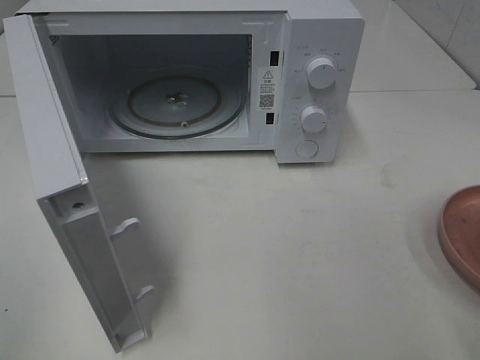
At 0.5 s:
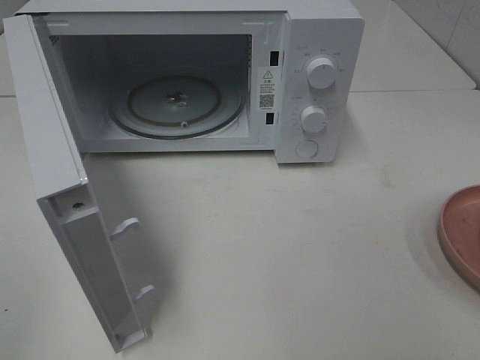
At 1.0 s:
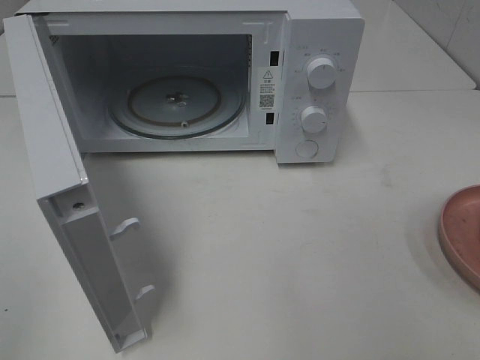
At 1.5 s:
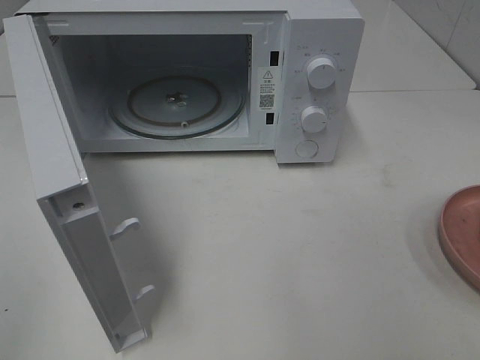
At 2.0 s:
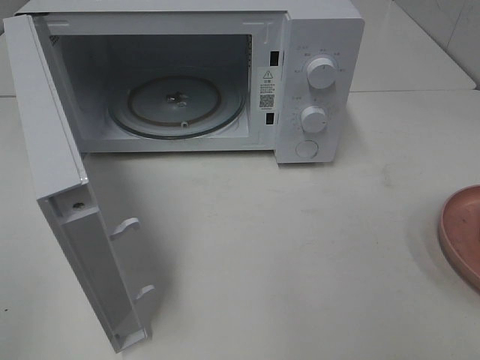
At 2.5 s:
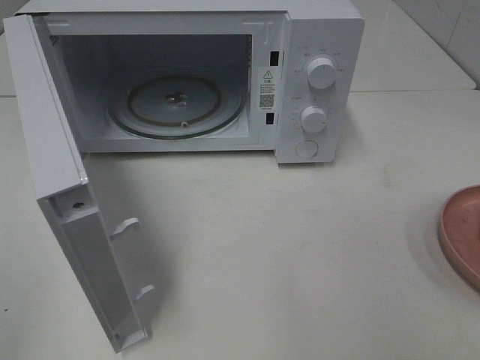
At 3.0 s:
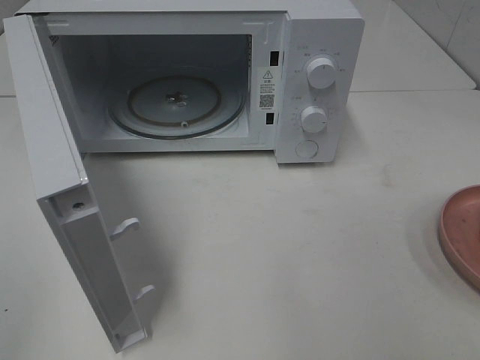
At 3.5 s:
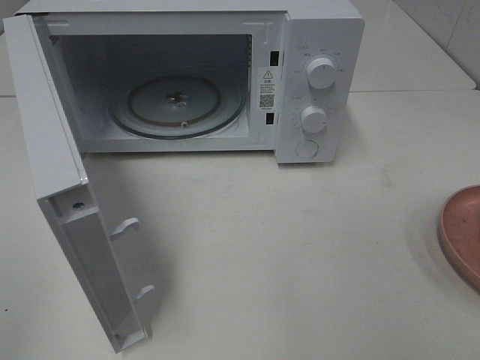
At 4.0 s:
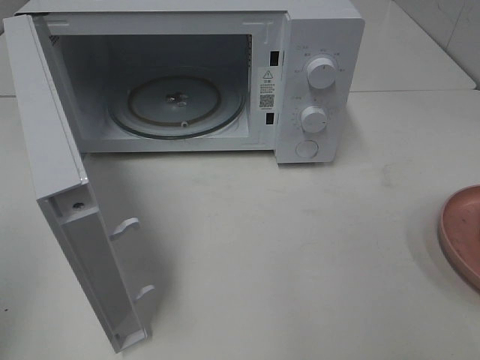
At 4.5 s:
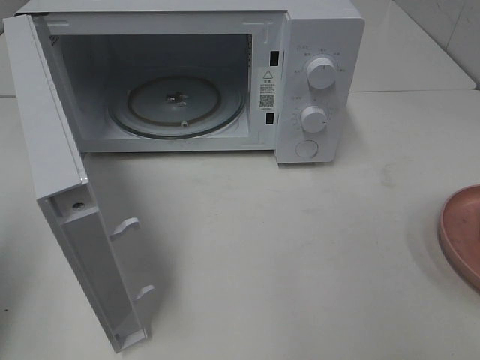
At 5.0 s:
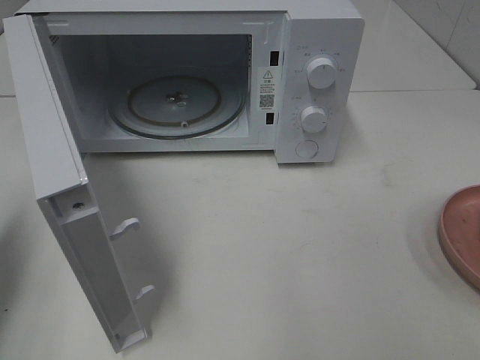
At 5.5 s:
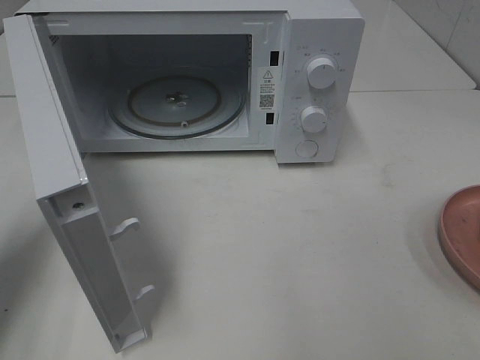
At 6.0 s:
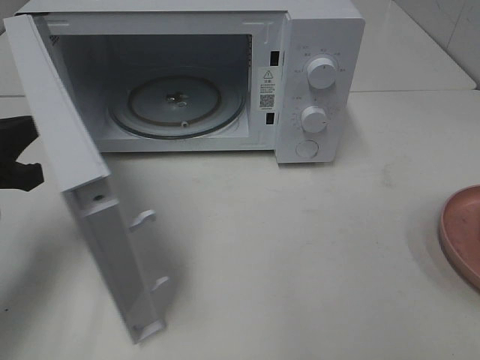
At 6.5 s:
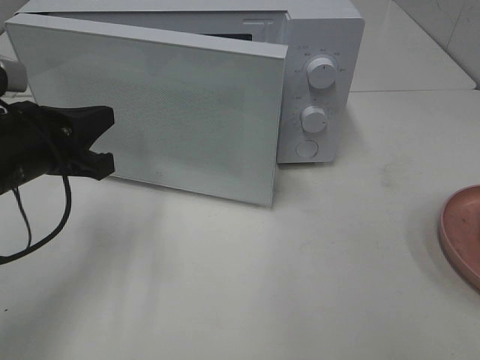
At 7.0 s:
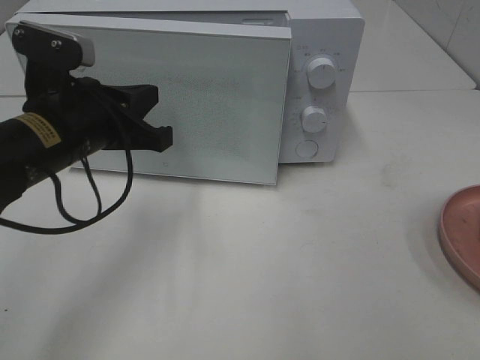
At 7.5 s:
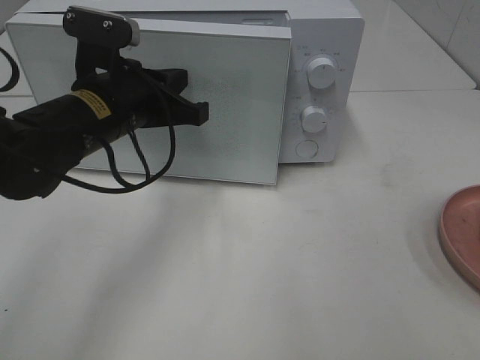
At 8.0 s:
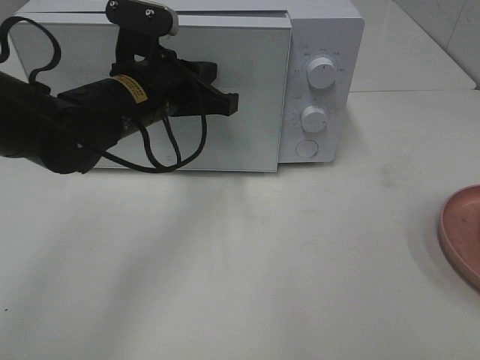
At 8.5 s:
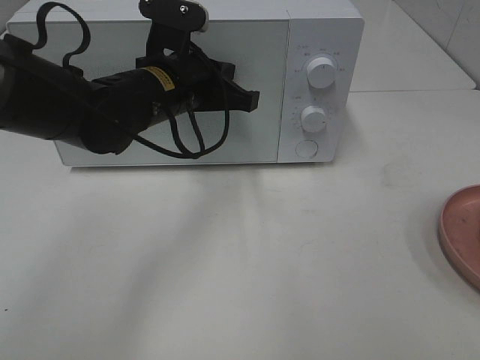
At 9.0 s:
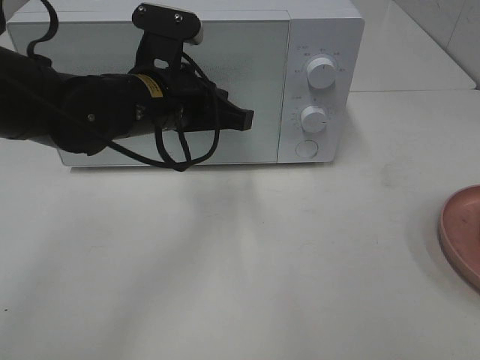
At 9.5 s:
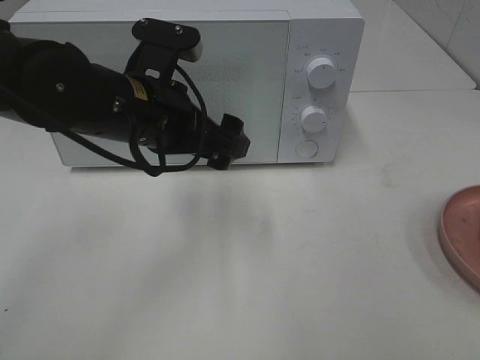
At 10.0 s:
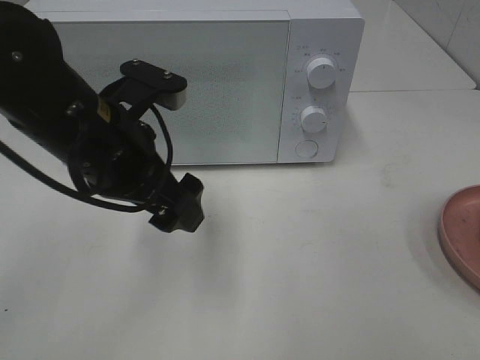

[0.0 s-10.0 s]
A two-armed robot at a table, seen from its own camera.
Task of the whole recording: Heat the burger.
Step, 0.0 to 9.0 s: Left hand: close the microwave door.
4.0 to 6.0 s: The left gripper moves forward and downward, some 20 cm.
6.0 to 8.0 s: The left gripper heads to the right and forward, covering roughly 20 cm.
8.0 to 10.0 s: The left gripper travels backward by about 10 cm, and opens.

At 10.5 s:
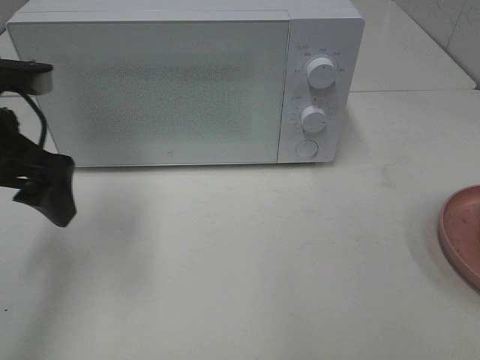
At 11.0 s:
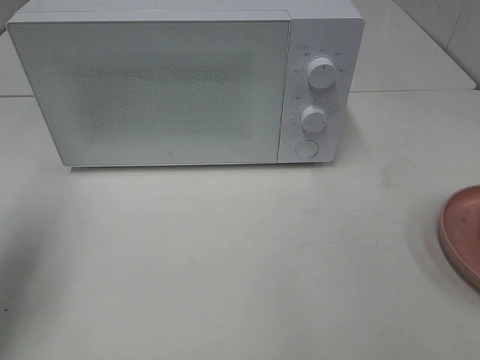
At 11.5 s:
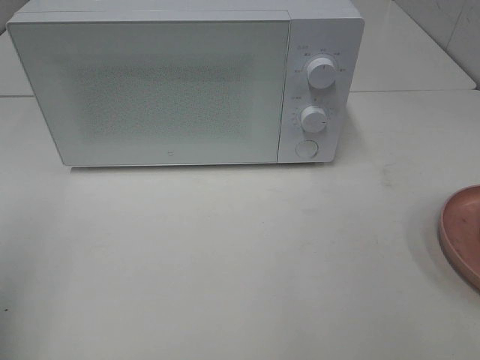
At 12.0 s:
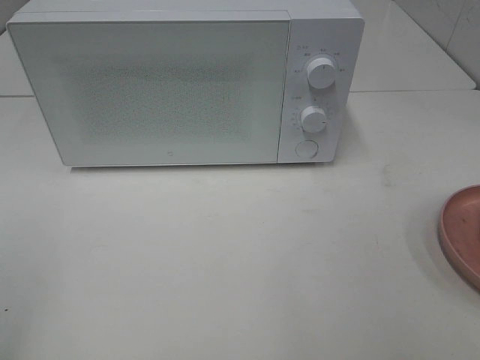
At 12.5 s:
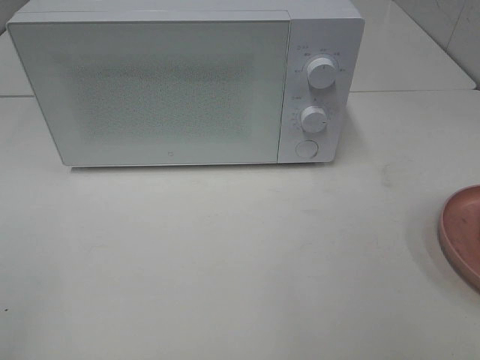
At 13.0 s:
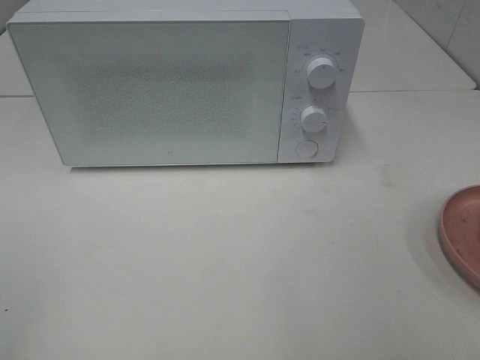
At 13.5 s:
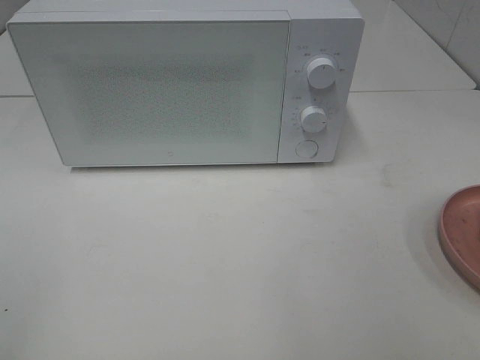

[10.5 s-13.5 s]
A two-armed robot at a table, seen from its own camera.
Task of the whole recording: Heat the burger.
10.5 to 12.0 s: The left gripper heads backward and to the left, covering roughly 25 cm.

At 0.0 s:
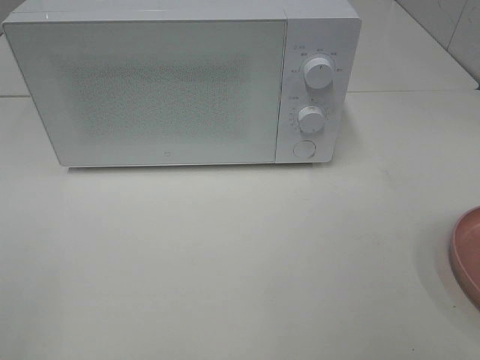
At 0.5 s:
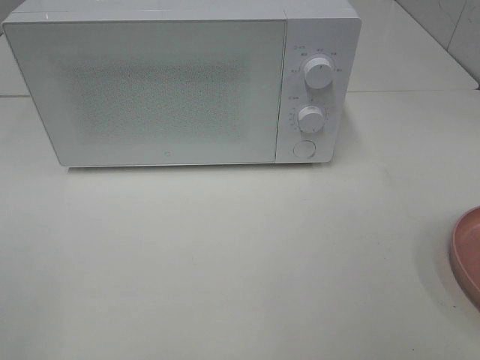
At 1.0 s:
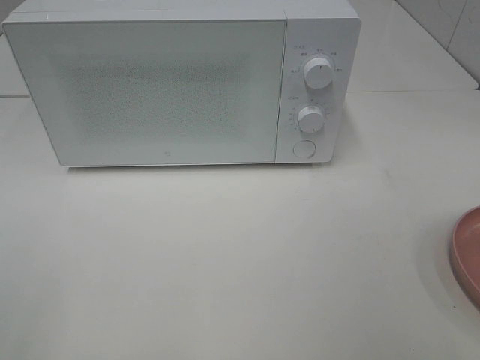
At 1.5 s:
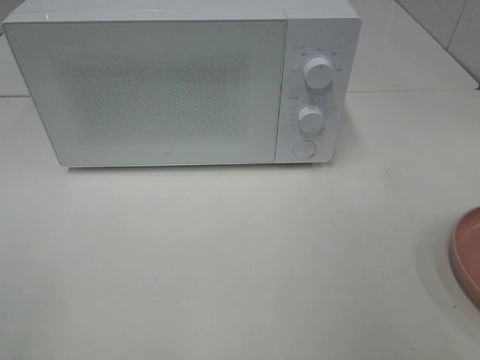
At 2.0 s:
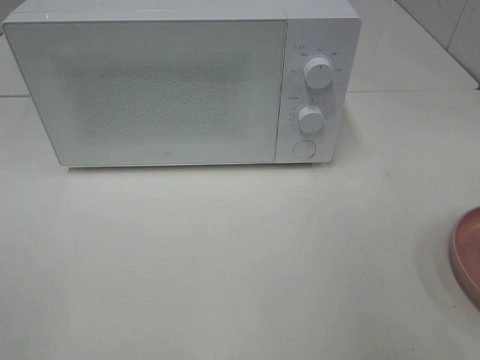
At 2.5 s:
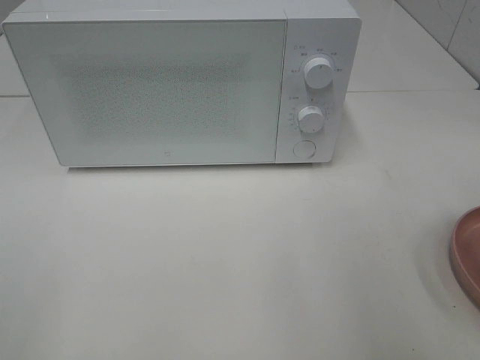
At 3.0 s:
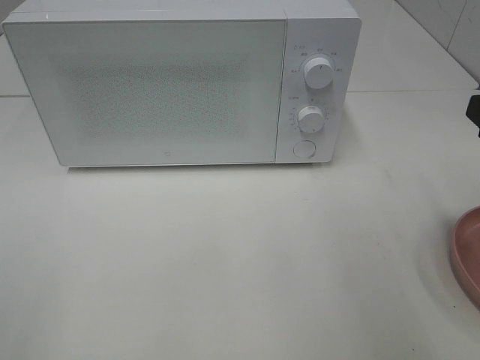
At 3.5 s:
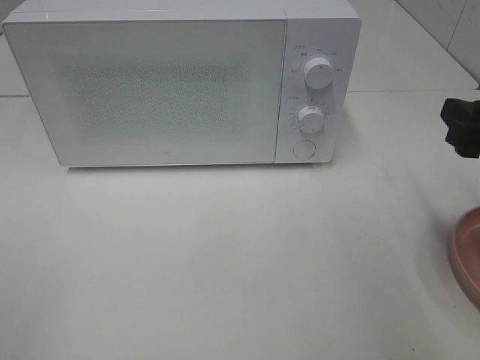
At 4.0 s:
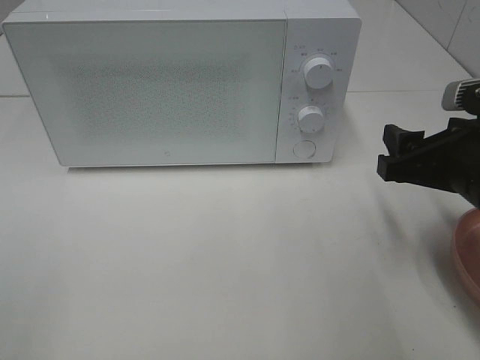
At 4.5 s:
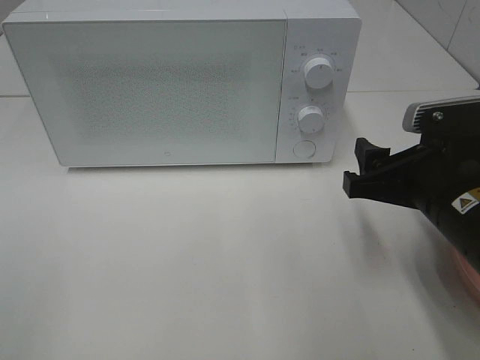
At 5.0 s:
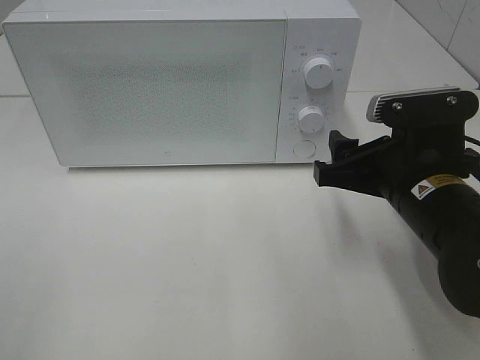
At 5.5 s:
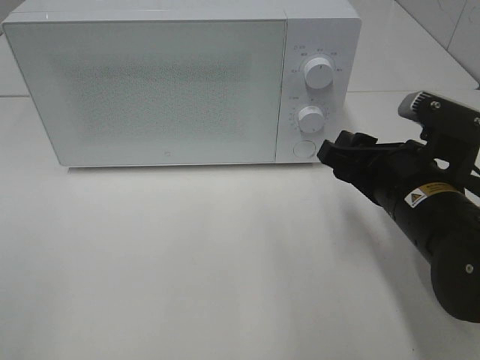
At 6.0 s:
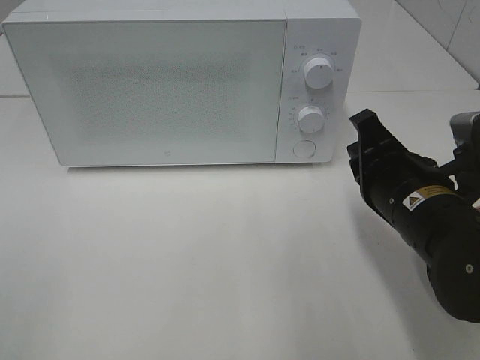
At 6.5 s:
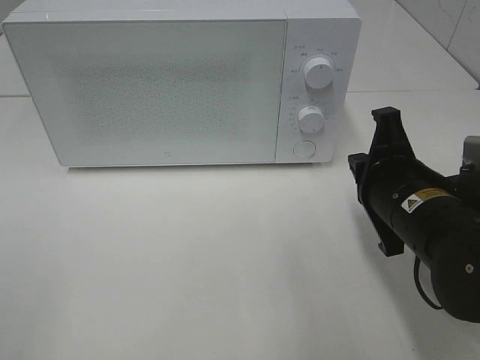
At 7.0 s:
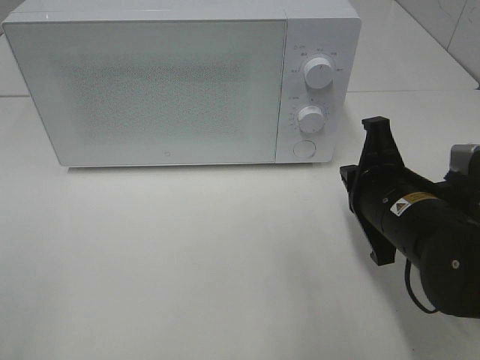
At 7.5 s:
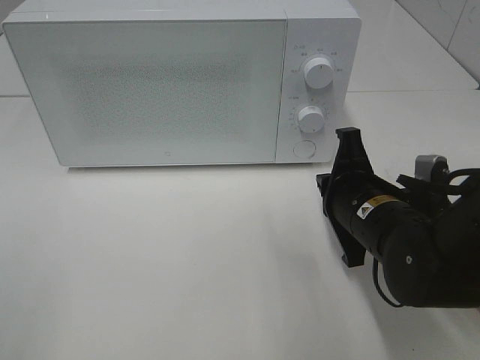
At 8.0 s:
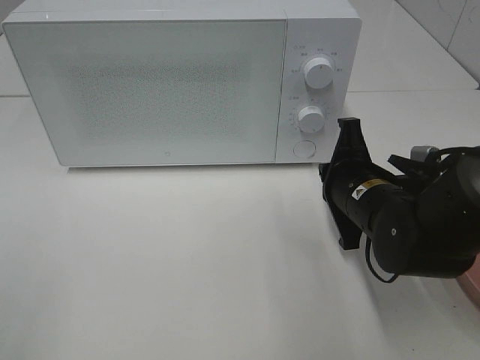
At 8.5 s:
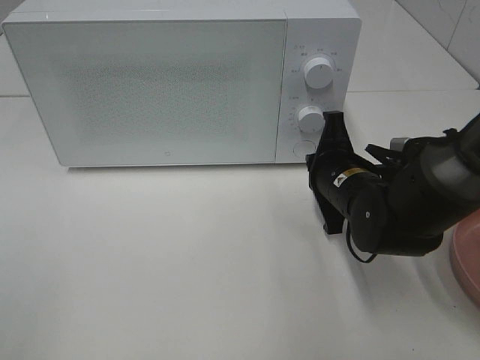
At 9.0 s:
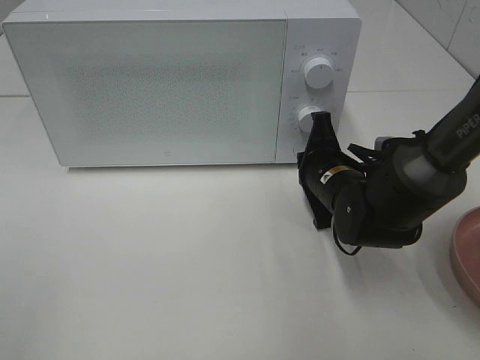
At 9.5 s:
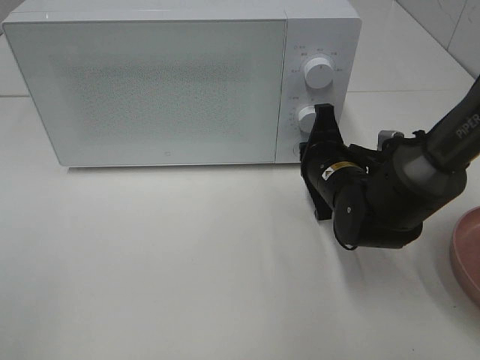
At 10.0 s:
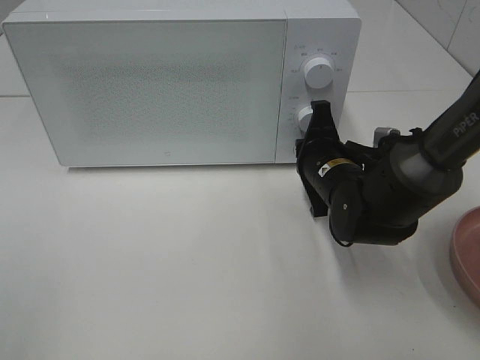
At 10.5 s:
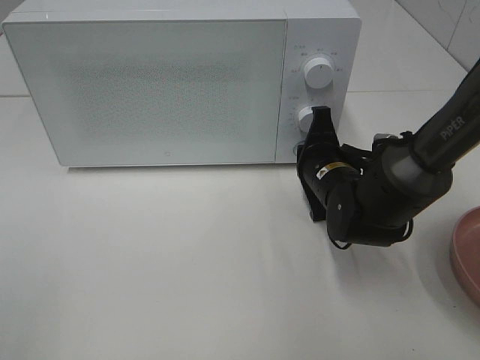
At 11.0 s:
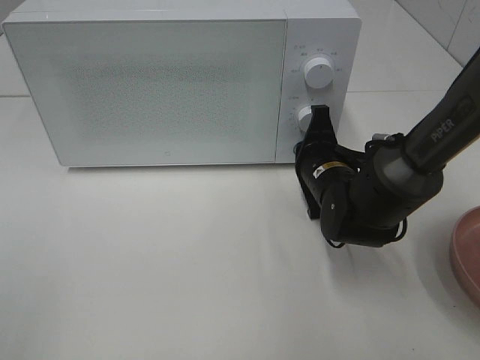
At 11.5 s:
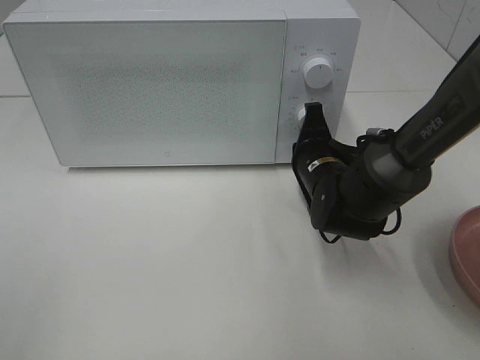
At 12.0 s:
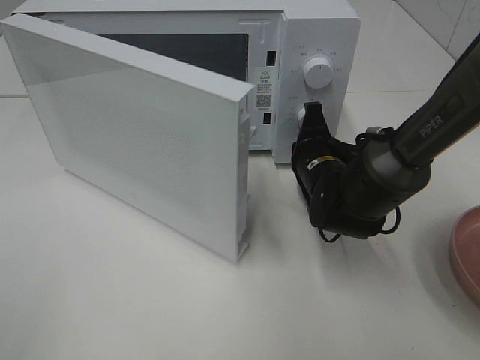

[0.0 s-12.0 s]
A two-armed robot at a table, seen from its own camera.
Task of the whole recording: Heat the burger.
2.0 to 4.0 s: The right gripper is displaced downward, forward and to the left by some 15 cm.
4.0 to 6.0 s: The right gripper shifts approximately 5 cm to the left, and closes.
6.0 to 8.0 s: The right gripper moves forward, some 5 cm.
8.0 to 10.0 s: The right gripper goes about 5 cm forward.

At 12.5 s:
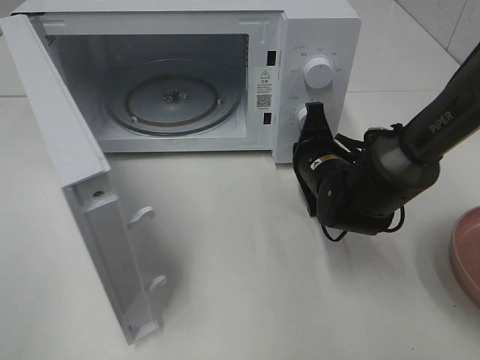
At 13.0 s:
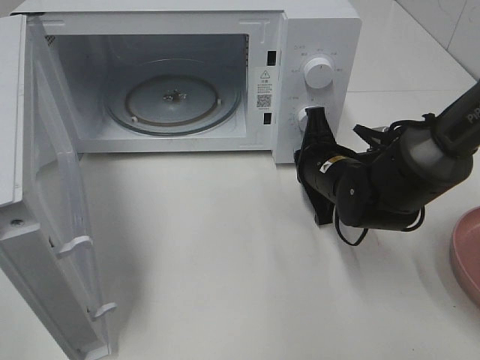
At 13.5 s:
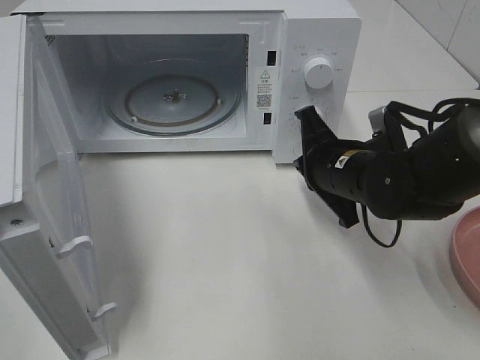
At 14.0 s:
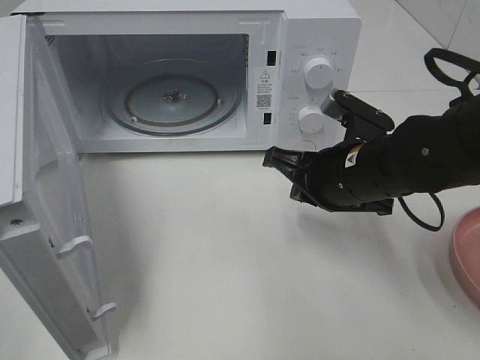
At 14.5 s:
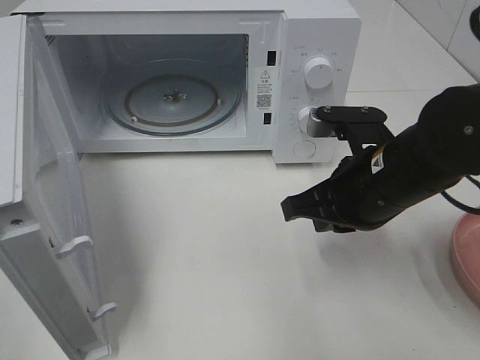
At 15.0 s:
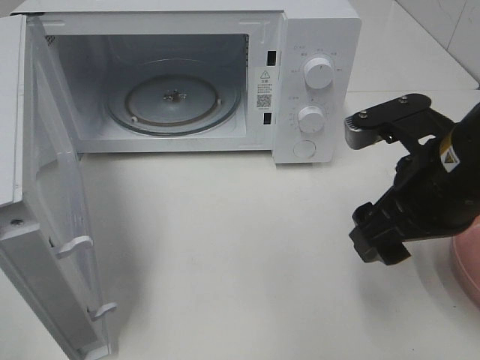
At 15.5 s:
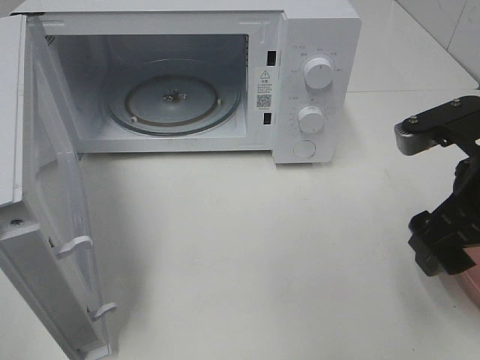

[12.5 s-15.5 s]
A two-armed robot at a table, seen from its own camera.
Task of the whole recording: Heat the burger.
12.5 to 14.0 s: The right gripper travels backward and upward by about 10 cm.
14.0 to 15.5 s: The right gripper is displaced to the right, upward and backward by approximately 15 cm, and opens up.
